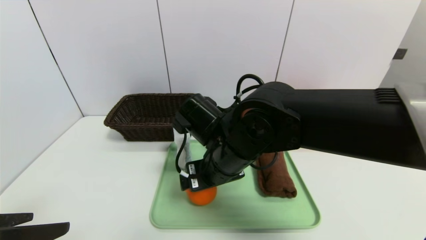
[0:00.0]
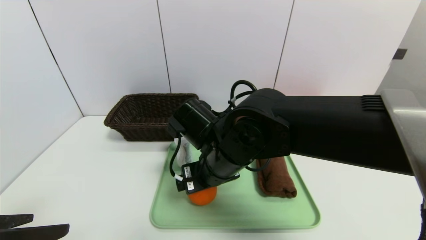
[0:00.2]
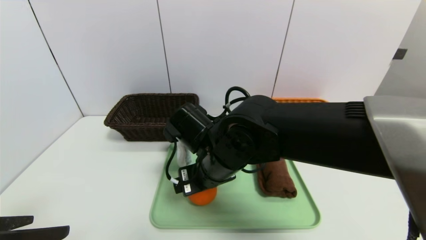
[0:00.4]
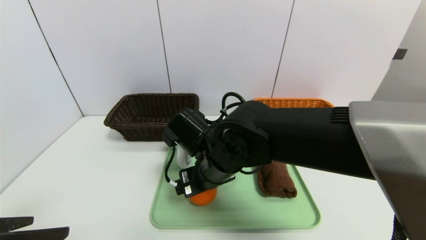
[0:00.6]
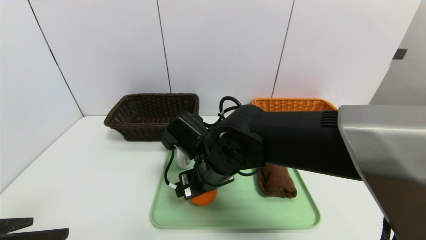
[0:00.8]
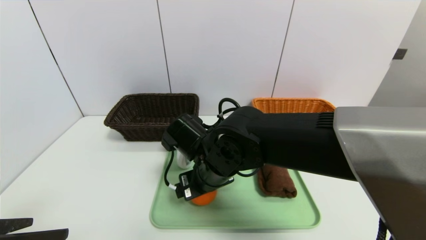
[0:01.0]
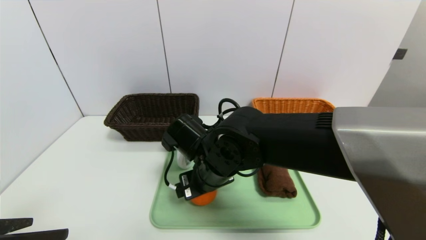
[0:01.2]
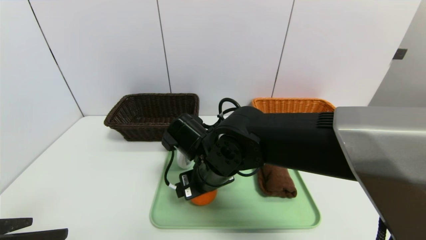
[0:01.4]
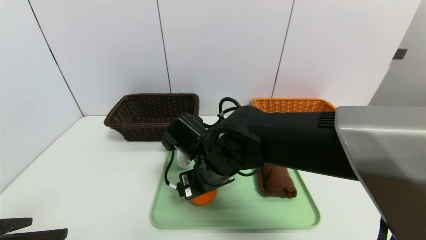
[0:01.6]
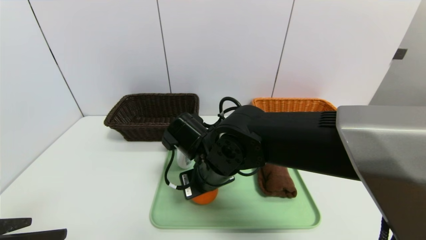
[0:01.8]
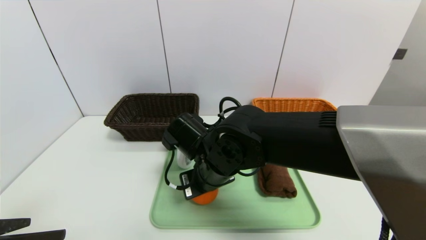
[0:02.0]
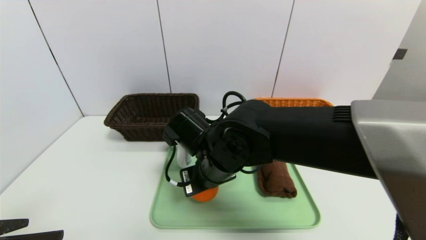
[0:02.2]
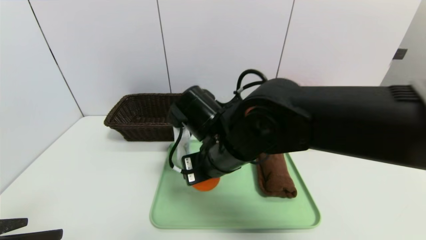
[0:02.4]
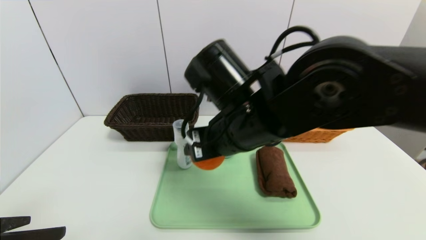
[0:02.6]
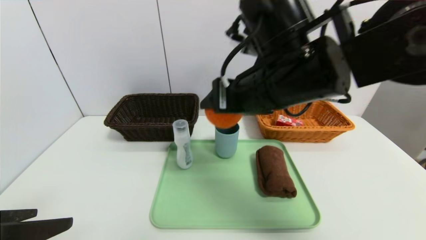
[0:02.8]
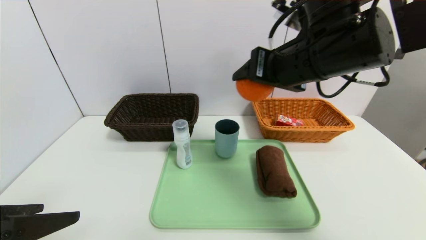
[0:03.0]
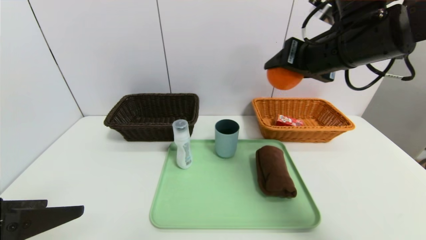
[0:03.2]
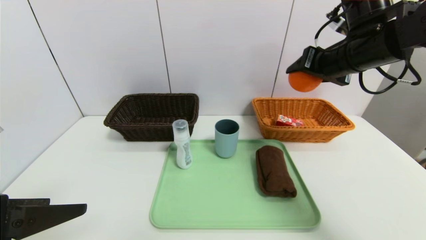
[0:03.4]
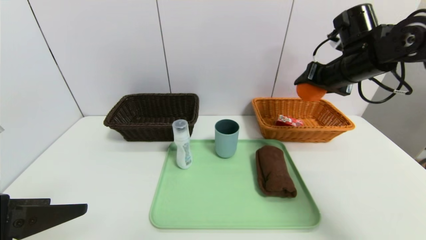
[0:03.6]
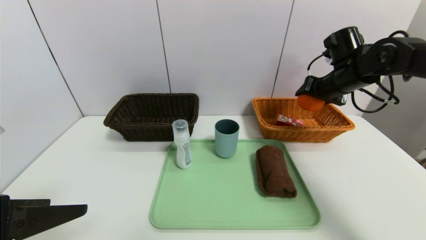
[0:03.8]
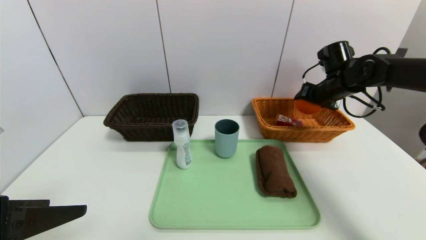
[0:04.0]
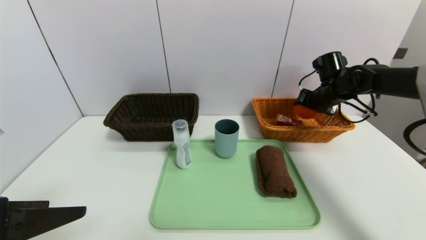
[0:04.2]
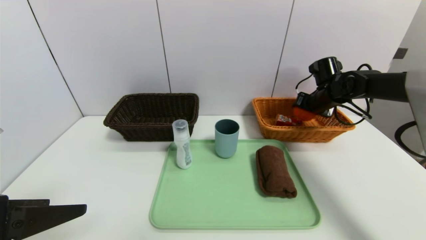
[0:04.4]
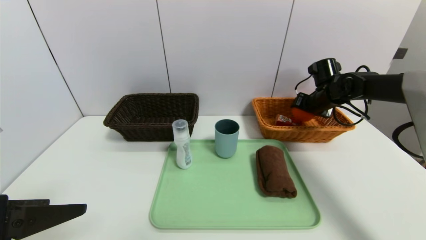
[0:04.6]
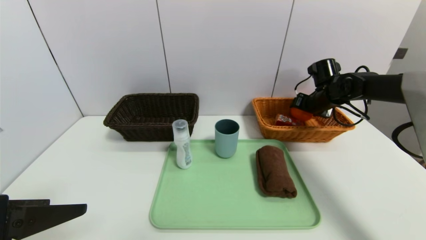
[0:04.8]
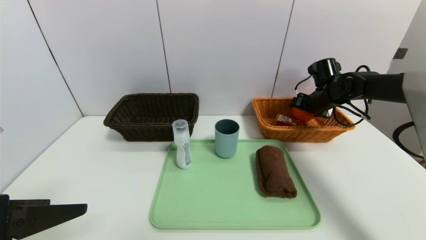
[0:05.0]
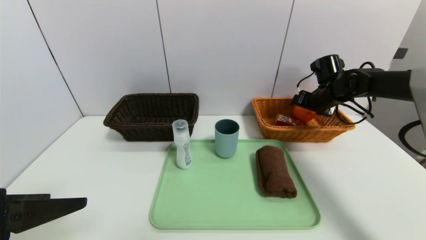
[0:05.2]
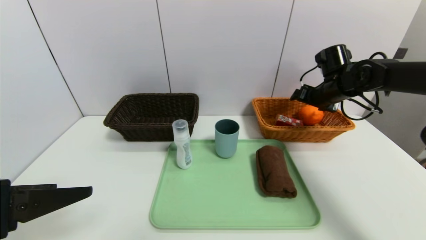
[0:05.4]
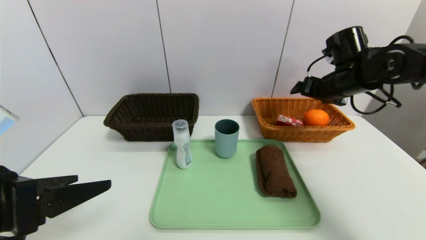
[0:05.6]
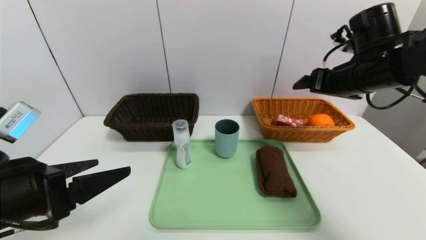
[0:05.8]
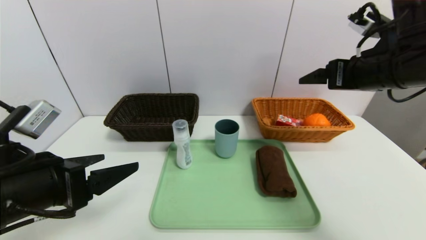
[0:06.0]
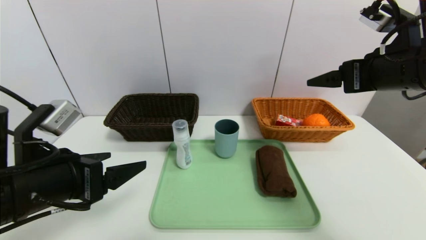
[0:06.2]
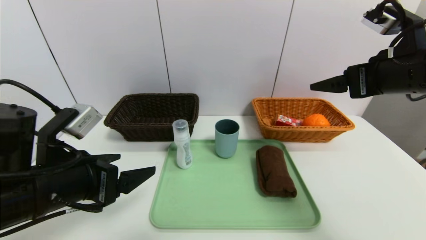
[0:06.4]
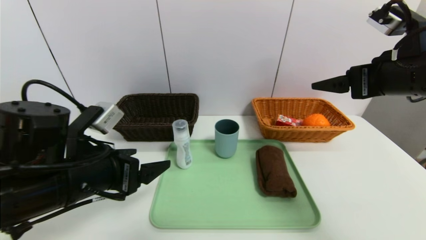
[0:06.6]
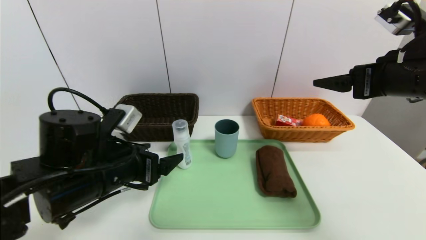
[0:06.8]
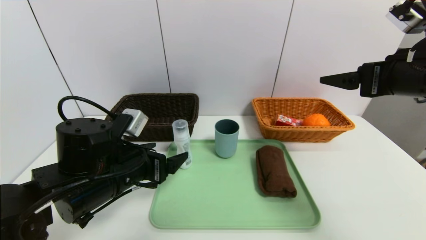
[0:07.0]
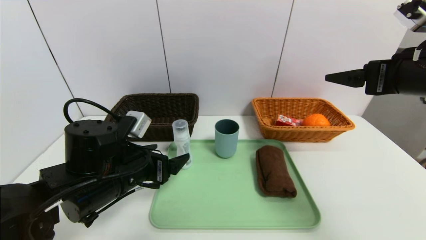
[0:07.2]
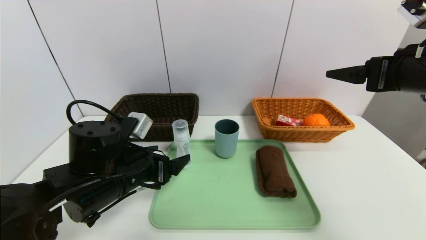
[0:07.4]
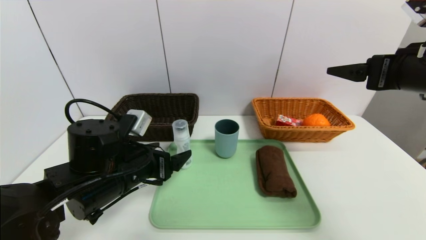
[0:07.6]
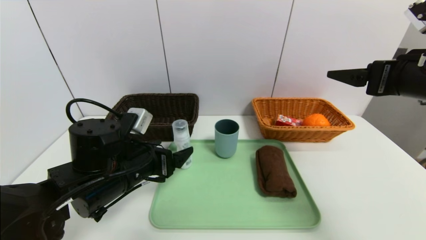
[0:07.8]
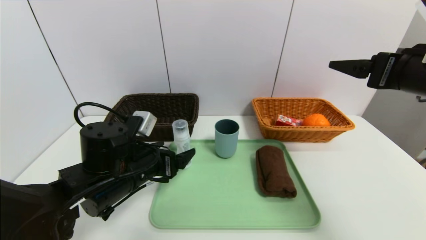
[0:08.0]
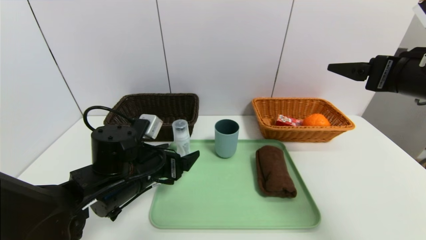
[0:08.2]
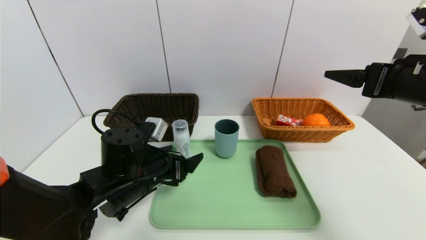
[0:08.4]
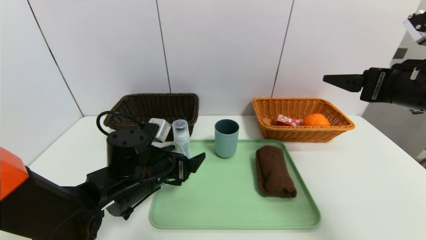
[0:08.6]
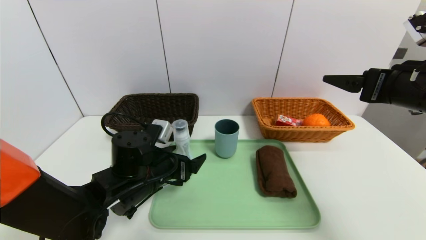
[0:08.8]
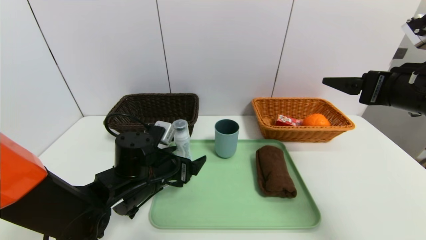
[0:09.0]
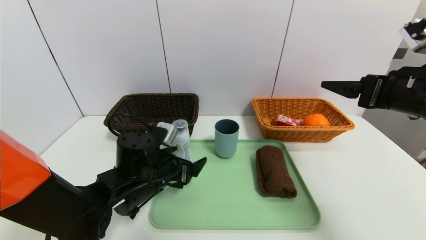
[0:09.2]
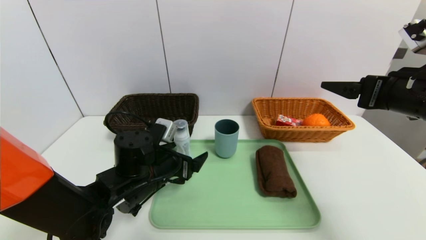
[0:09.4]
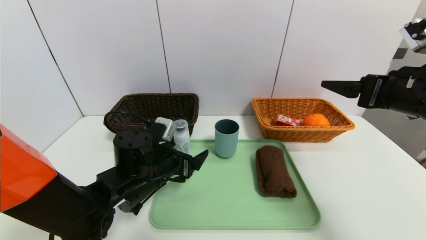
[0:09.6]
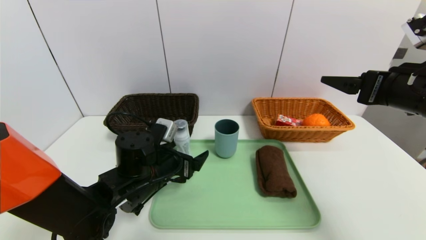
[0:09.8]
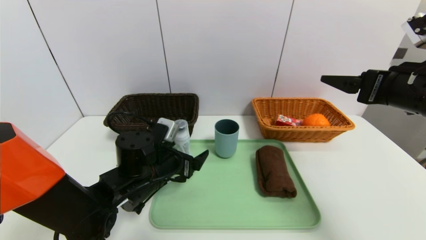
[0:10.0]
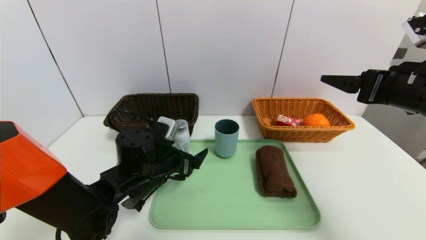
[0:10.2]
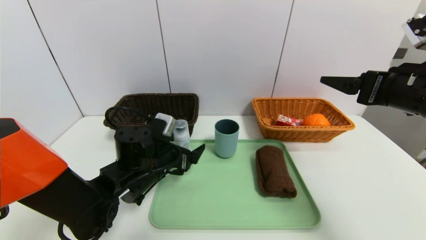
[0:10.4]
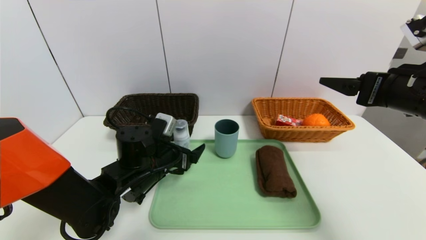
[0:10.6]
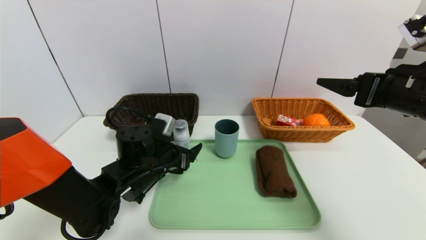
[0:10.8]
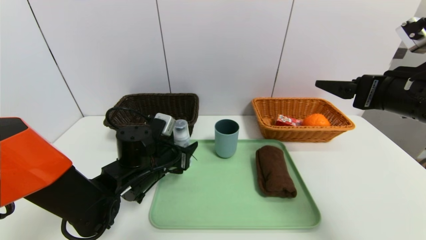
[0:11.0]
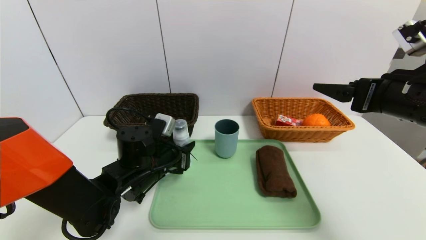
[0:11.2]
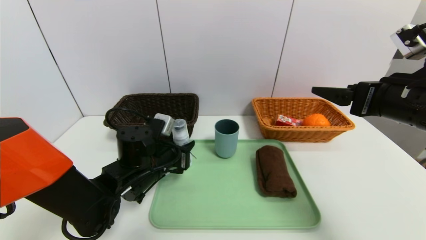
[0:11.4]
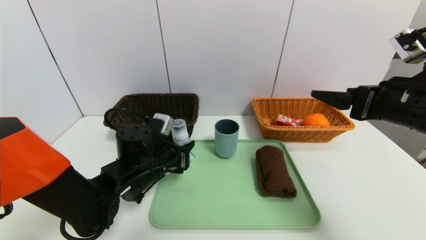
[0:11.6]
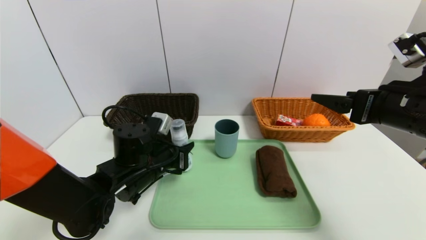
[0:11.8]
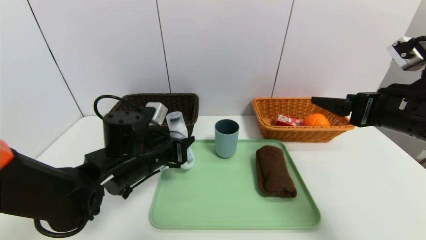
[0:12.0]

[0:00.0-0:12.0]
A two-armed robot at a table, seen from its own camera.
Task of the whole recording: place the food in the right basket with the right gripper, and place the non food items in the left basket with the left gripper.
Step, 0:00.0 to 0:05.4: Grasp the orange and put it in the right basket.
0:01.6 to 0:03.0: The right gripper is displaced upward and to the right by roughly 25 cm.
0:03.0 to 0:04.4: The right gripper shifts roughly 30 cm forward, to the right and downward.
0:04.4 to 0:06.0: The left gripper shifts about 5 cm forward, while the right gripper shifts some 25 cm backward and upward, and opens.
0:06.0 to 0:07.6: The left gripper goes some 15 cm forward, to the right and downward. The right gripper shifts by approximately 5 cm.
0:07.6 to 0:09.0: The left gripper moves about 5 cm.
0:09.0 to 0:10.4: The grippers move only a little.
0:10.4 to 0:12.0: The left gripper closes up.

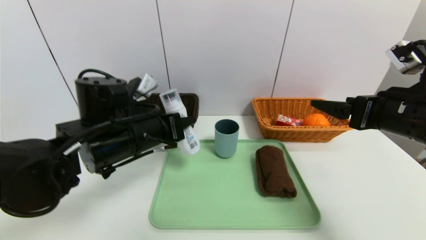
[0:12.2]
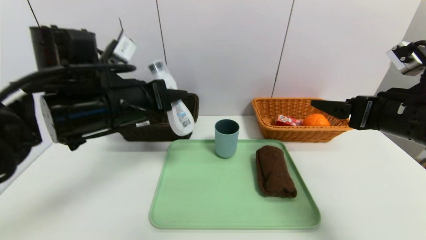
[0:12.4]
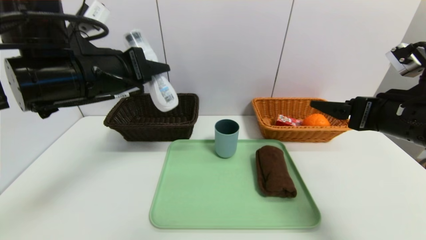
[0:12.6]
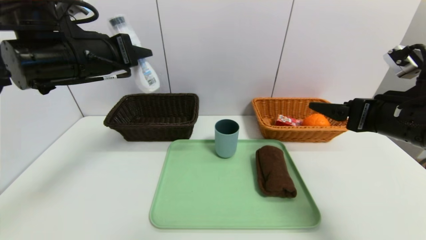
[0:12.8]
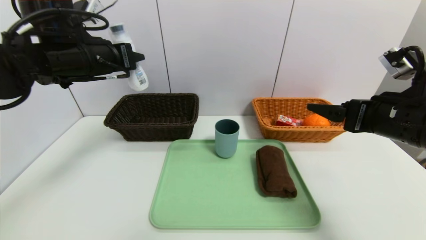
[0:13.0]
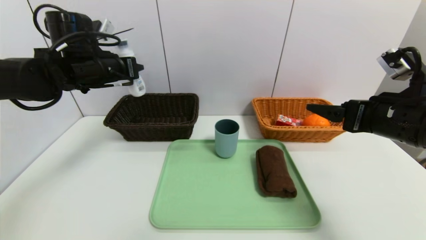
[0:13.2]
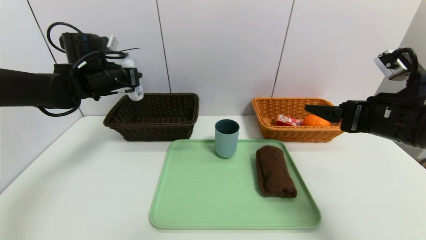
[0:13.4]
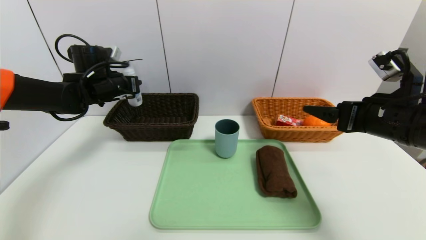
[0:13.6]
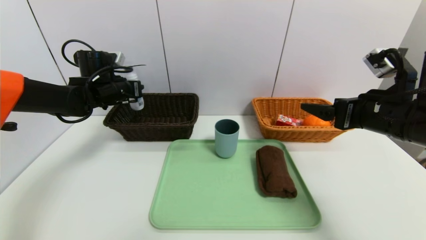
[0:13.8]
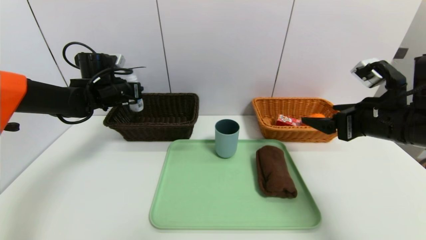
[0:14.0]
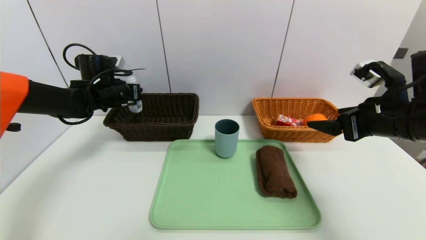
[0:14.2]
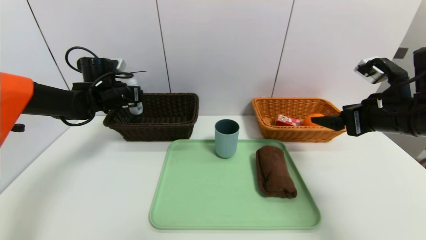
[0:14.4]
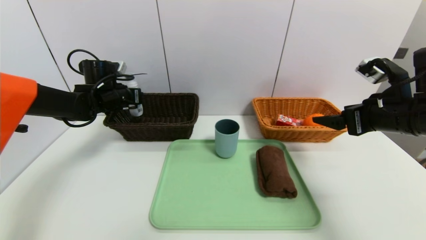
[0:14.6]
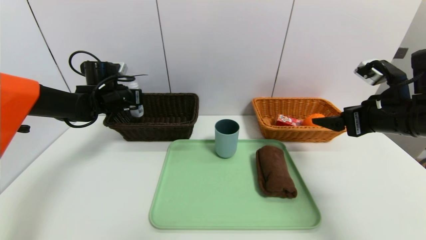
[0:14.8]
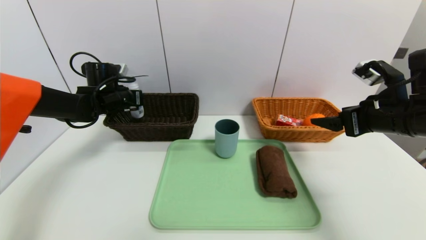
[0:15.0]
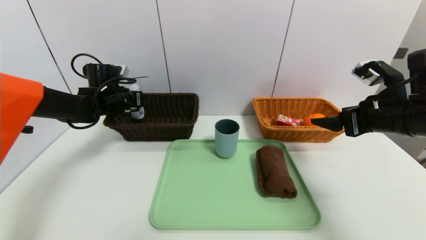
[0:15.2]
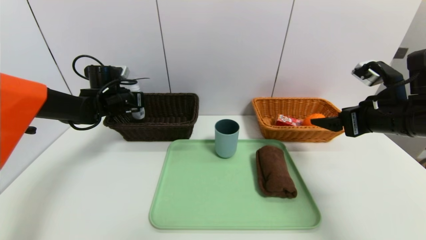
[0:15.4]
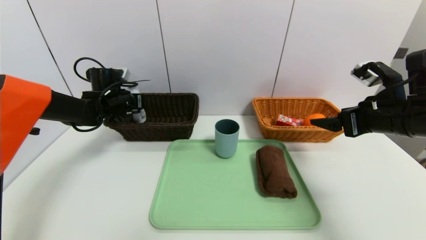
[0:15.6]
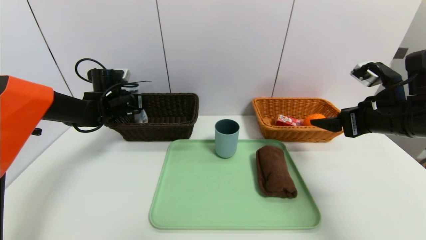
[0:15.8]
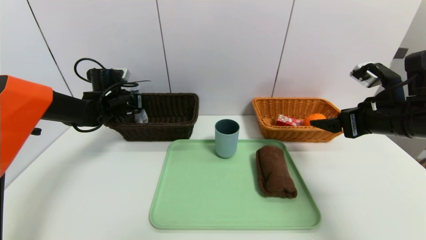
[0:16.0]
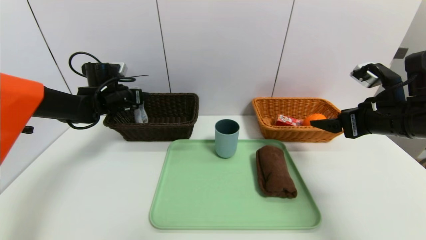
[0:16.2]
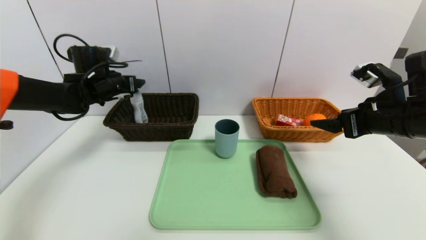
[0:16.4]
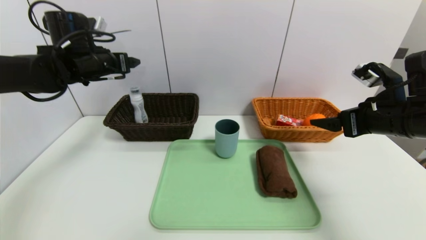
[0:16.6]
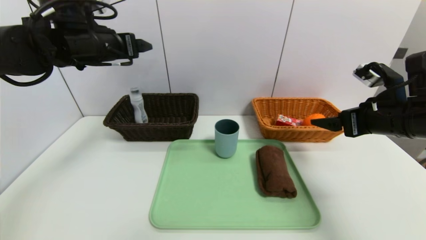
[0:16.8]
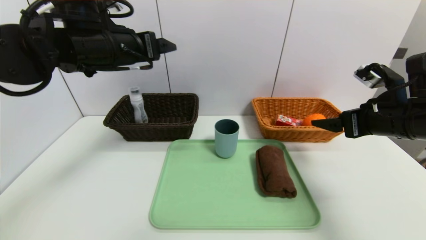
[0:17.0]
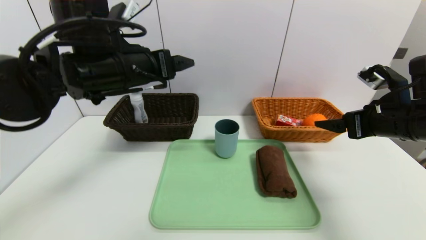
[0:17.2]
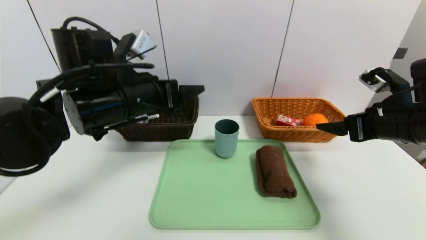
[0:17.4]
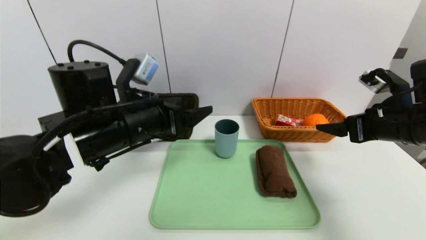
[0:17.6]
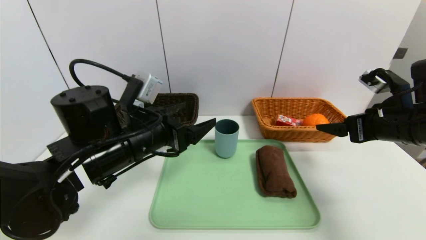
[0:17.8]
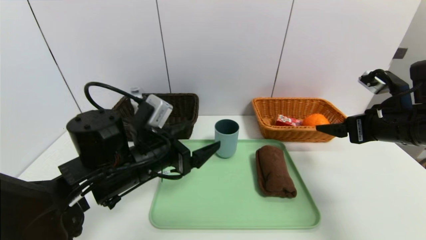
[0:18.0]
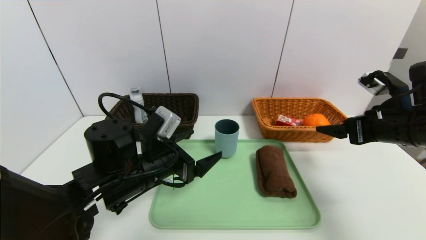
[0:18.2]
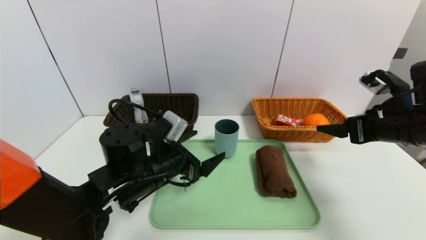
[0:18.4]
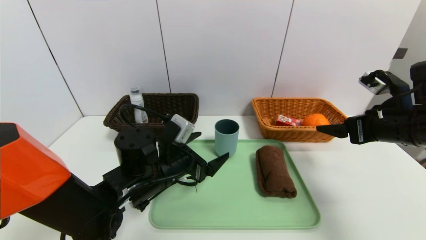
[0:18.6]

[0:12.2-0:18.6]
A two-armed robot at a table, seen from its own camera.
Task of the whole recording: place the food in the right basket with the right gripper, and place the non food items in the left basket with the left gripper.
Step, 0:12.2 to 0:16.4: Grasp the washing liquid and put it in the left basket.
0:12.2 to 0:13.8: The left gripper travels forward and to the left by roughly 20 cm.
0:13.8 to 0:15.4: The grippers stay close to where they were, moving slightly.
0:15.4 to 0:17.0: The left gripper heads upward, backward and to the right, covering approximately 20 cm, and opens its fingers.
0:17.0 to 0:18.6: The left gripper shifts roughly 20 cm downward.
